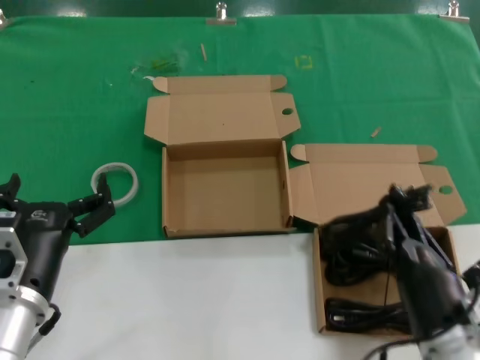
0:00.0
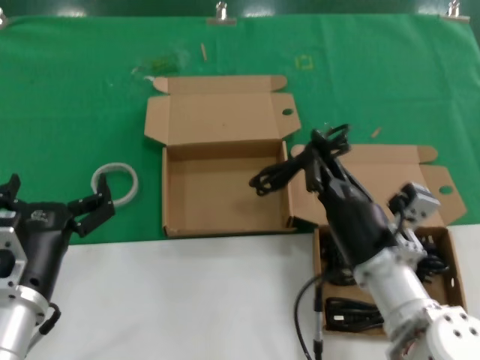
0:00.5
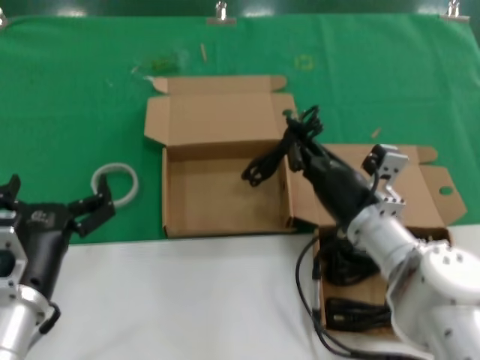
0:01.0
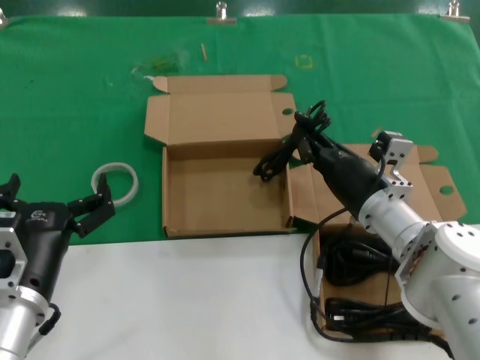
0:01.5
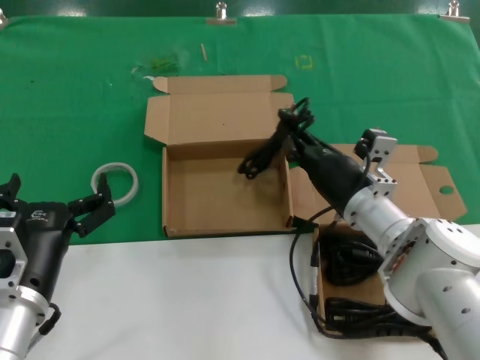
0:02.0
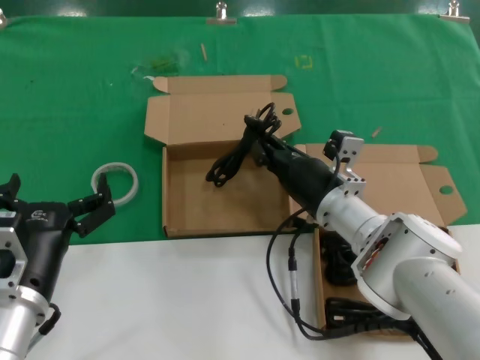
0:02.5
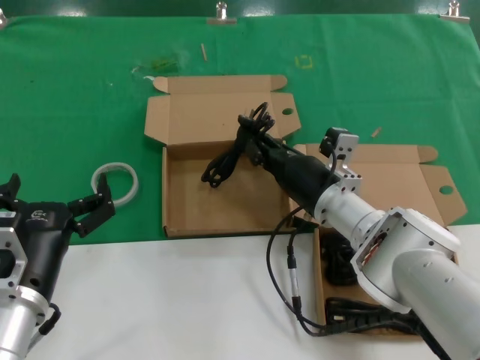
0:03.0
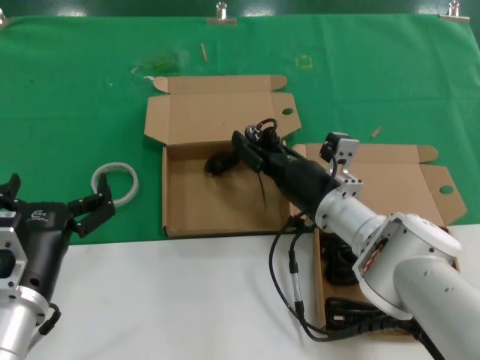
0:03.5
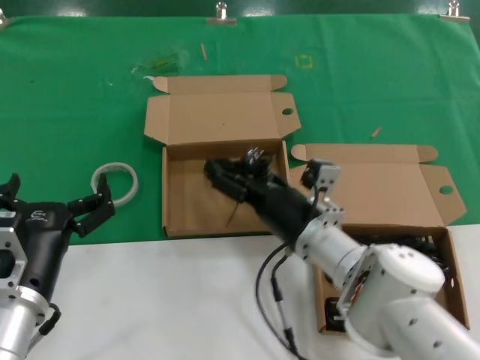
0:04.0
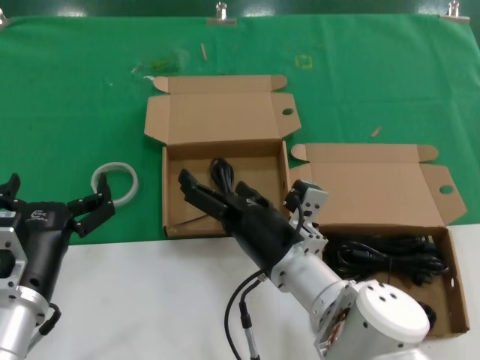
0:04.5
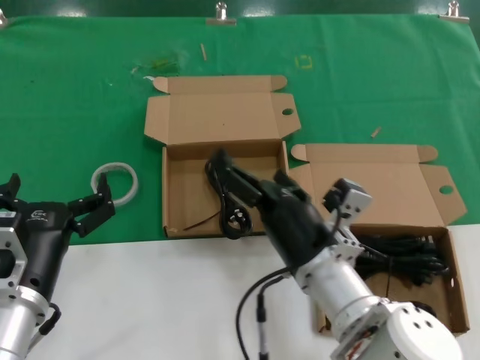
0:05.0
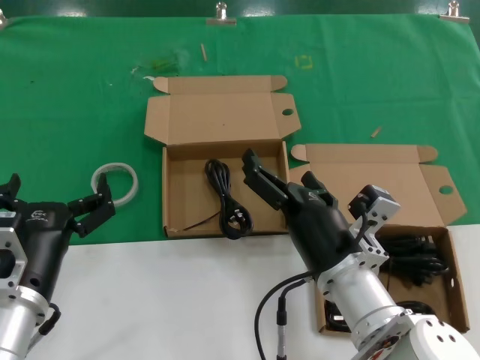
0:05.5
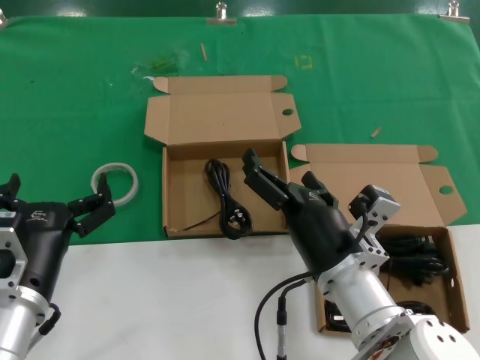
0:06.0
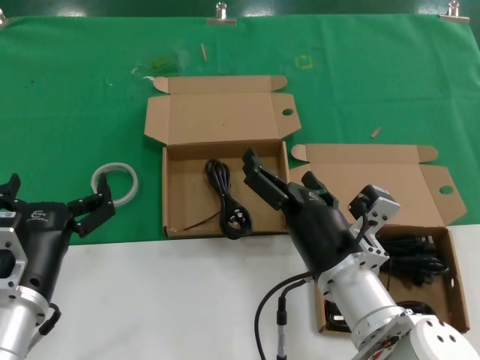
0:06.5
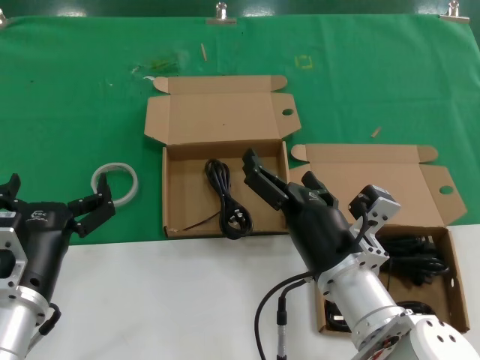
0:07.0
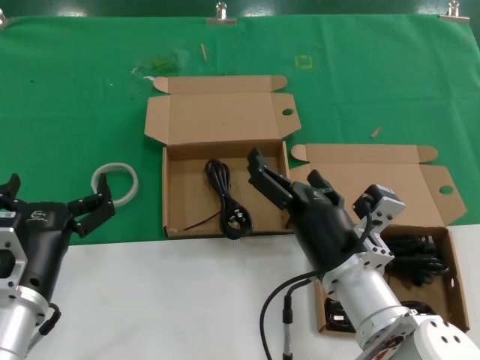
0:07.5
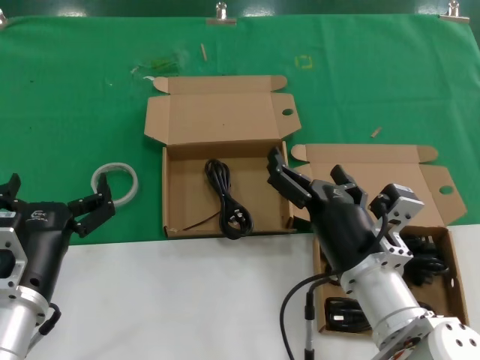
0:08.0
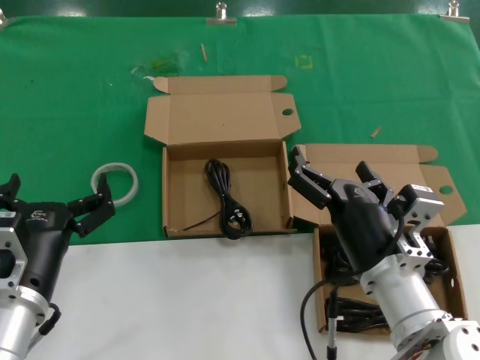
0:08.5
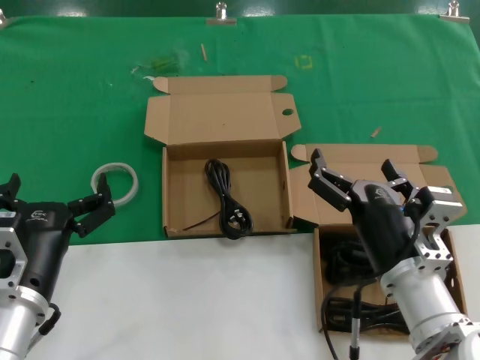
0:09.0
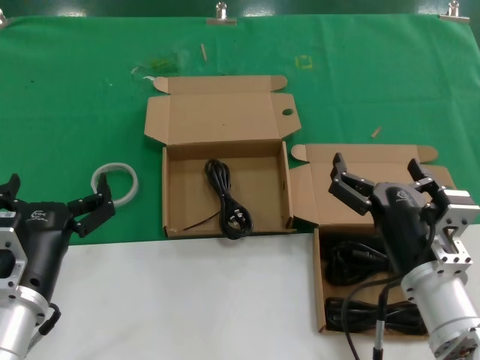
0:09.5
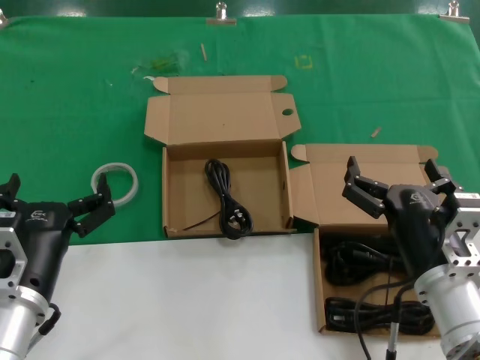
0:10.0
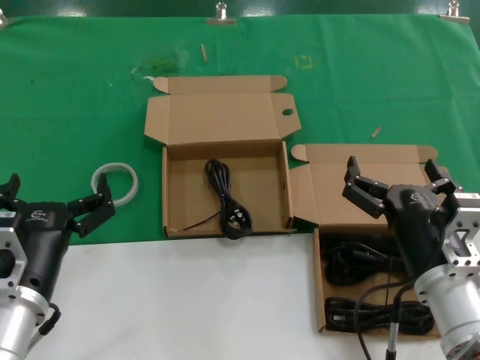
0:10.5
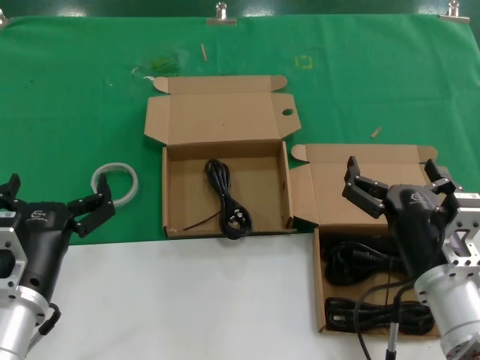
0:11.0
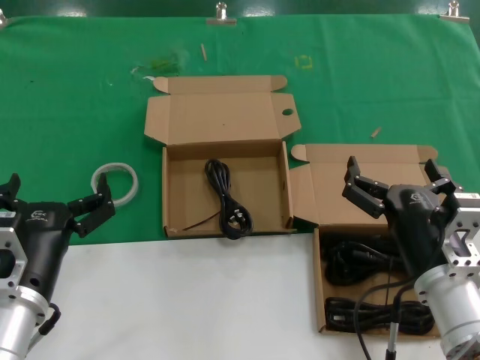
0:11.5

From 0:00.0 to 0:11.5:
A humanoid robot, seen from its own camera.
Task of the whole recording: take the parts from the box containing them and put them into an empty box.
Step, from 0:00.0 to 0:04.0: Place the data cable in the another box.
From 0:00.0 to 0:02.0: The right hand moves forward, approximately 25 cm.
From 0:02.0 to 0:04.0: The right hand travels to the left by some 5 cm.
From 0:04.0 to 0:06.0: The right hand shifts about 10 cm backward.
From 0:06.0 to 0:07.5: Neither hand changes place.
From 0:07.5 to 0:09.5: The right hand heads to the right, covering about 10 cm.
From 0:09.5 to 0:11.5: The hands move only a little.
